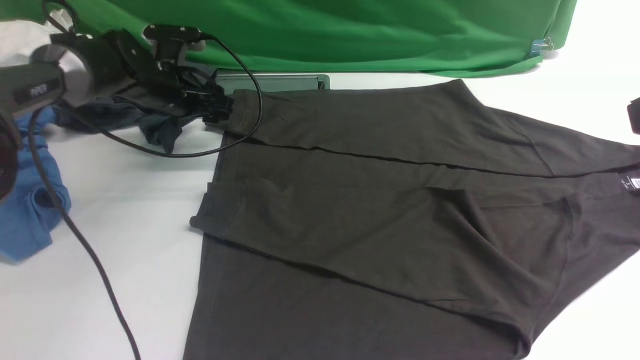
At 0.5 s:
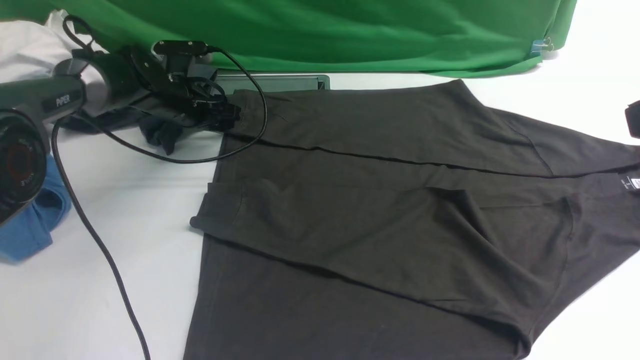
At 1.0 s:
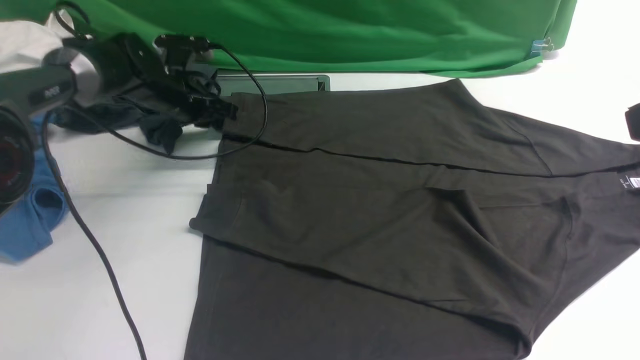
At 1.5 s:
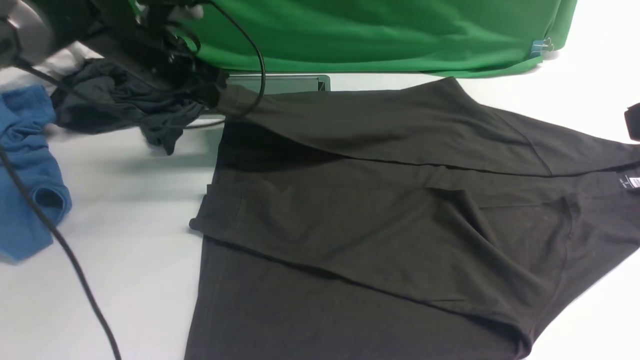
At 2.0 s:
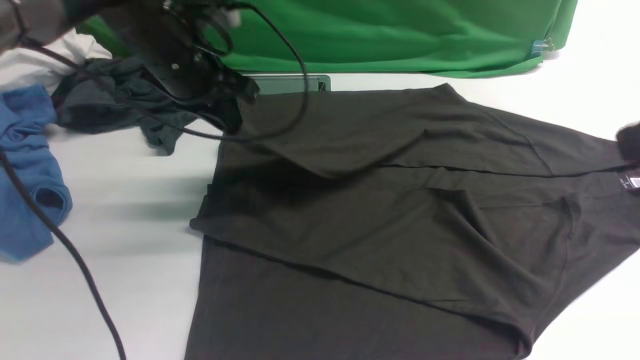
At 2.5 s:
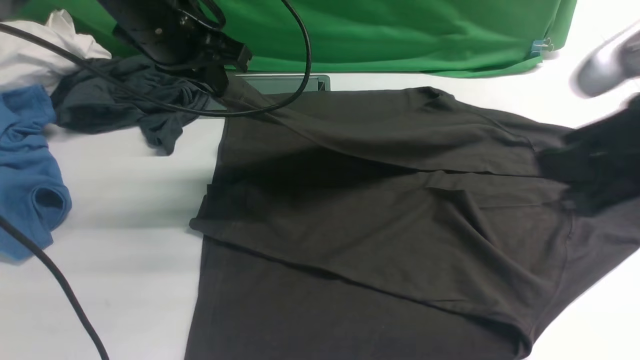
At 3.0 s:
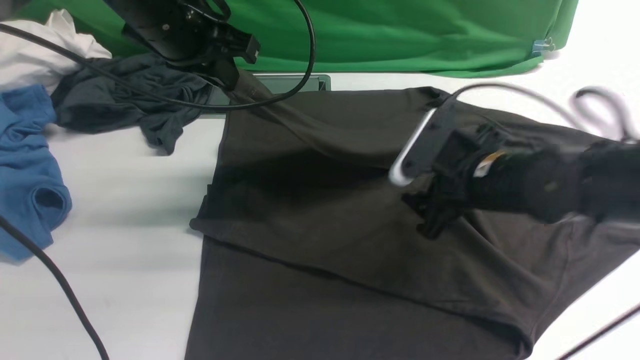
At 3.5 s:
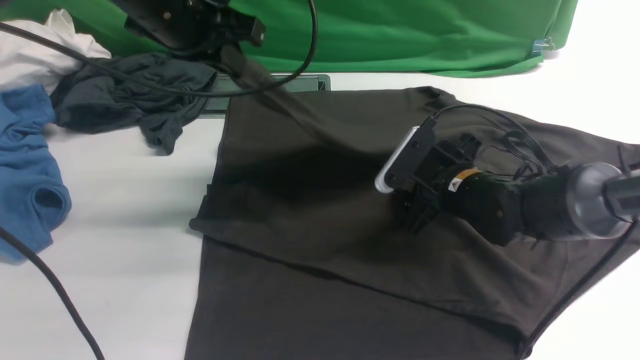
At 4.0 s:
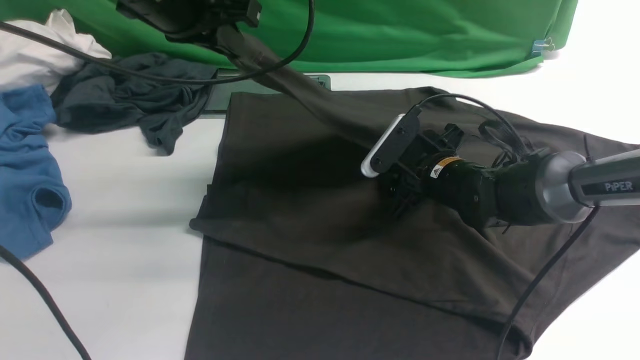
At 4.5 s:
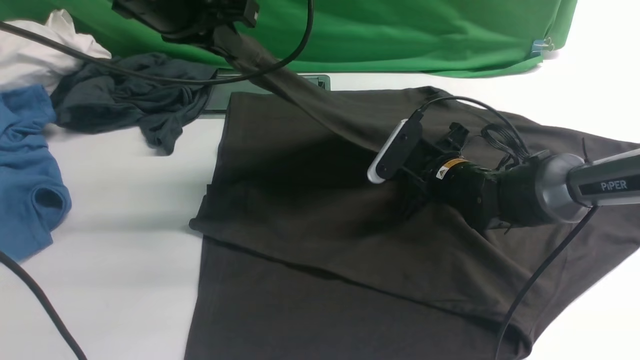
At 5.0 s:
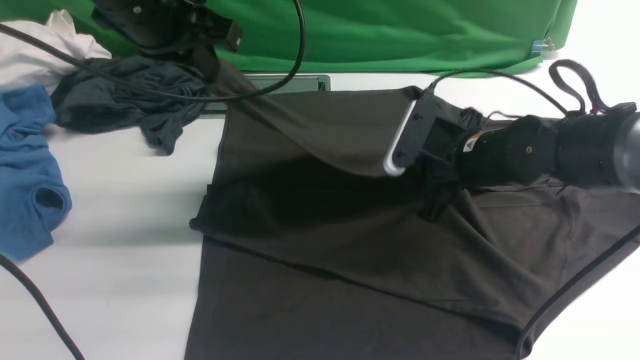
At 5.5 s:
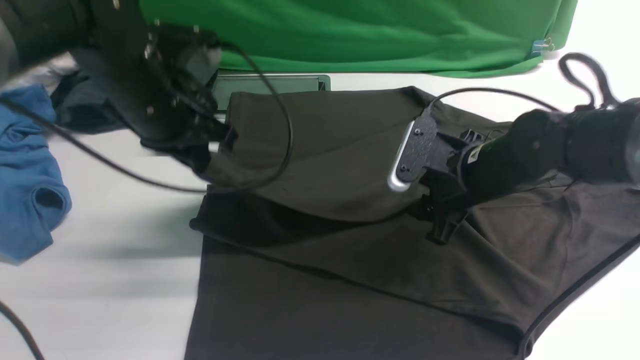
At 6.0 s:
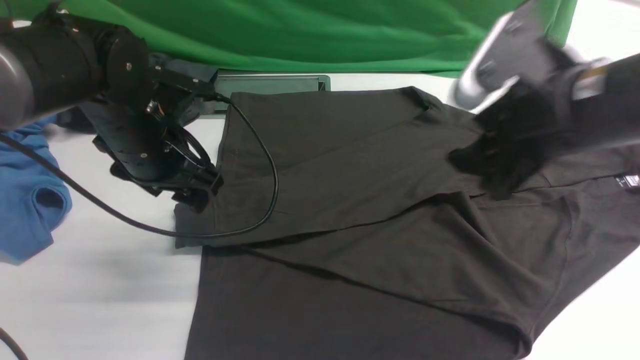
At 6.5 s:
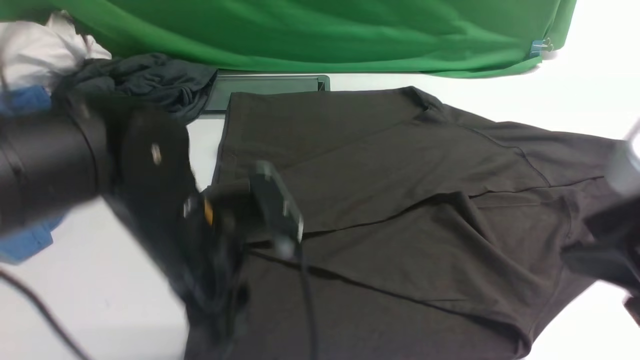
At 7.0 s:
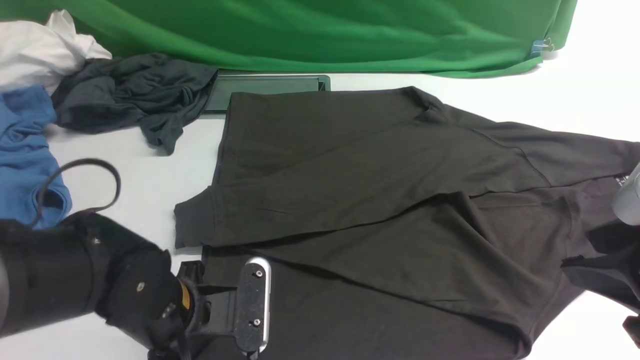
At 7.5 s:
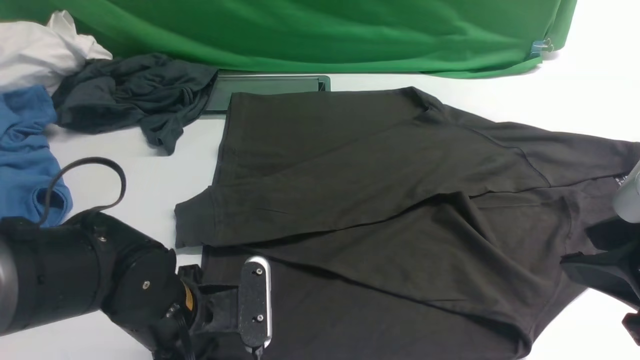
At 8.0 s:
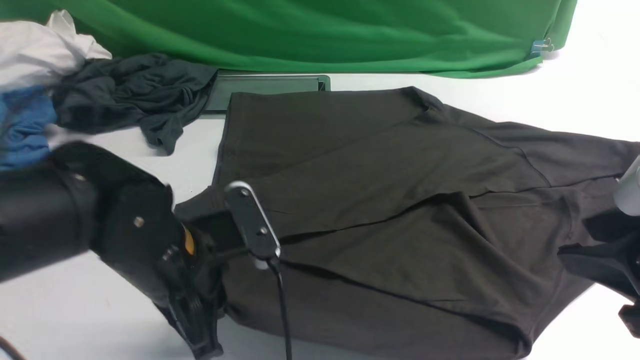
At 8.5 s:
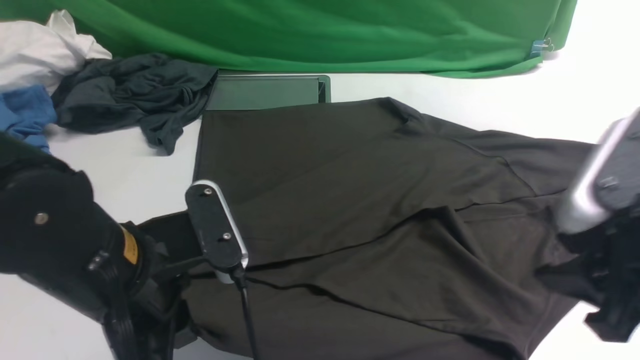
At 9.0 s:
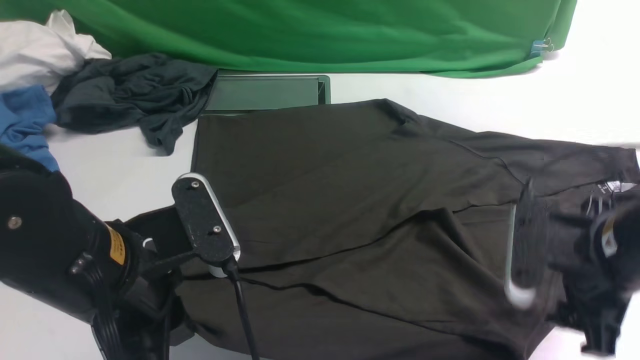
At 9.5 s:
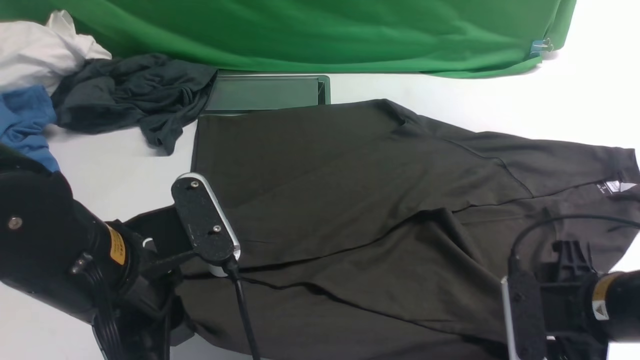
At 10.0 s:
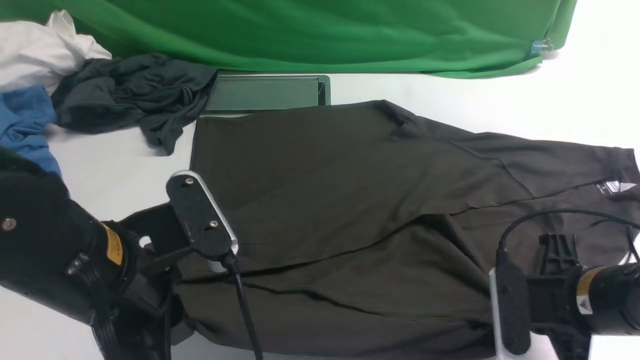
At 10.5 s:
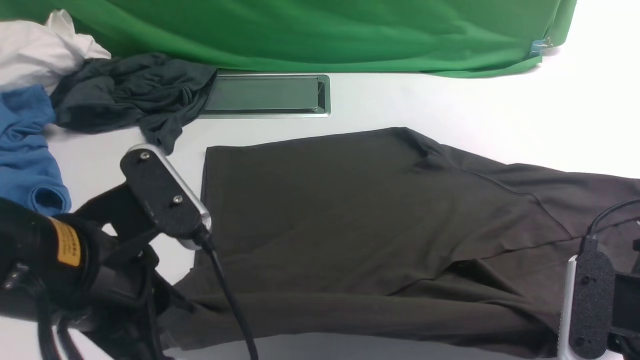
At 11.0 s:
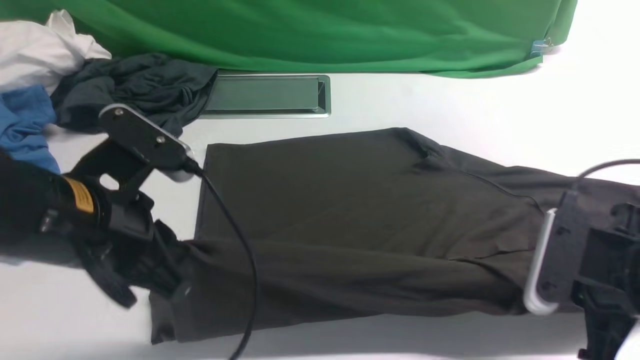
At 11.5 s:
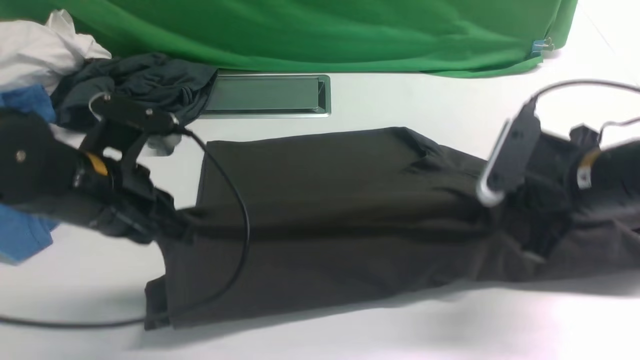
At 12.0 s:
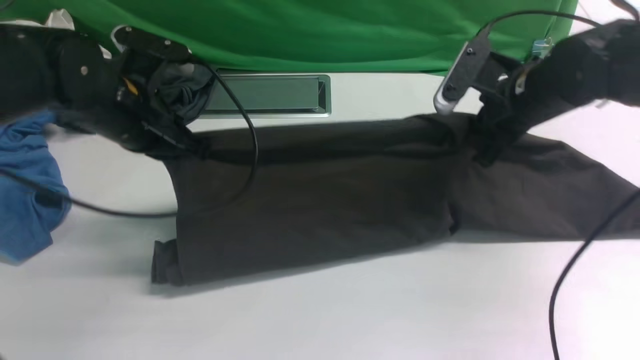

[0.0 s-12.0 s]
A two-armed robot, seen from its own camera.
Step, 1.5 to 6.0 s: use the left arm to drag and drop the cuff onto the cuff closest to the left arm.
Step, 6.5 to 10.0 s: use both arms simultaneously to clamp the lower edge of the clothing fabric.
0.0 to 2.0 s: The left gripper moves upward, backward and to the right, approximately 15 cm, and closes up.
2.0 to 4.0 s: The left gripper goes approximately 10 cm upward. Meanwhile the right gripper heads downward, forward and to the left, covering approximately 35 cm, and opens its fingers.
4.0 to 6.0 s: The left gripper goes roughly 10 cm downward, and opens up; the right gripper travels upward and backward by approximately 25 cm, and closes, then opens again.
6.0 to 8.0 s: The left gripper travels backward by approximately 10 cm, and closes its fingers. The right gripper heads backward and to the right, covering about 15 cm.
8.0 to 10.0 s: The left gripper moves upward, about 5 cm. The right gripper heads downward, covering roughly 15 cm, and closes up.
10.0 to 12.0 s: Both grippers move forward, some 20 cm.

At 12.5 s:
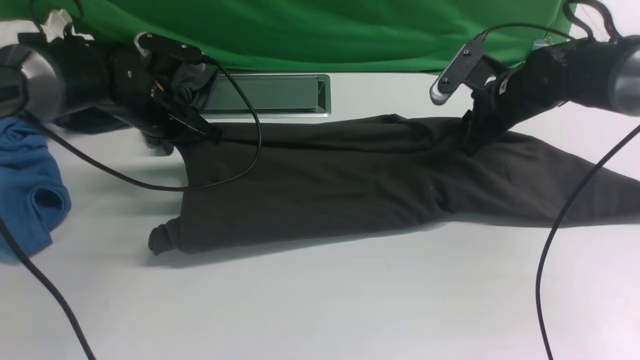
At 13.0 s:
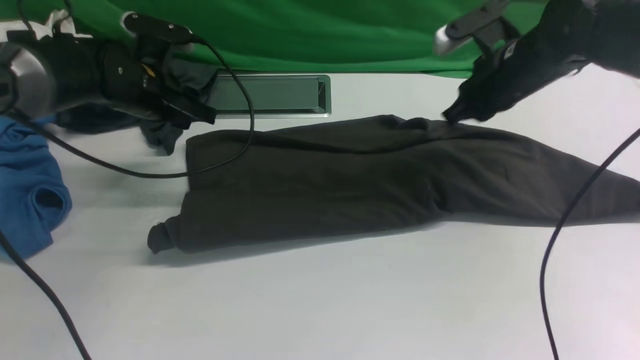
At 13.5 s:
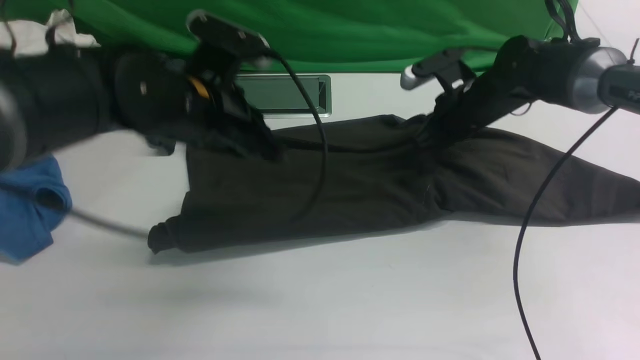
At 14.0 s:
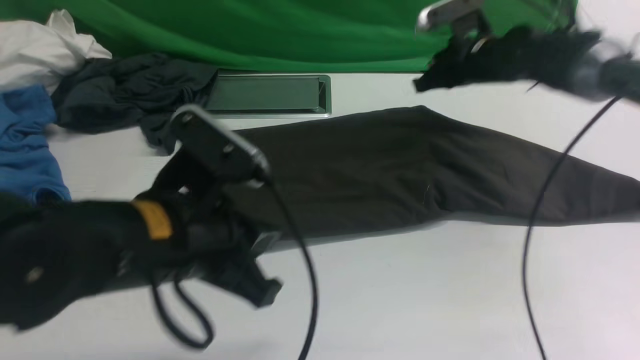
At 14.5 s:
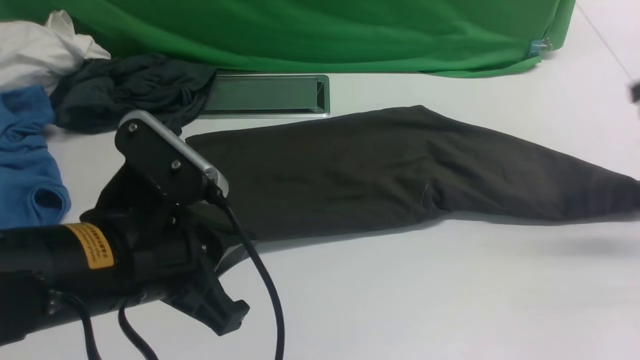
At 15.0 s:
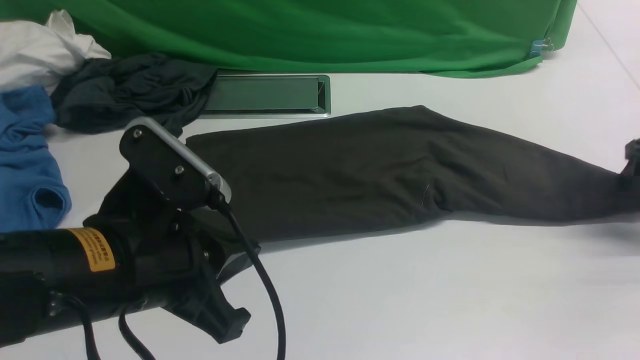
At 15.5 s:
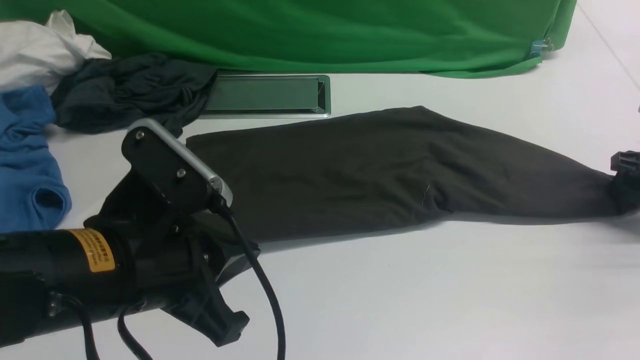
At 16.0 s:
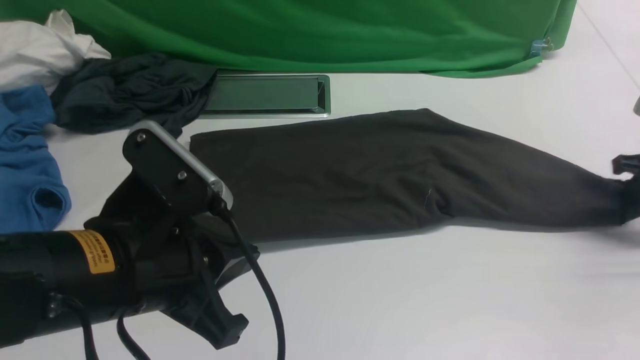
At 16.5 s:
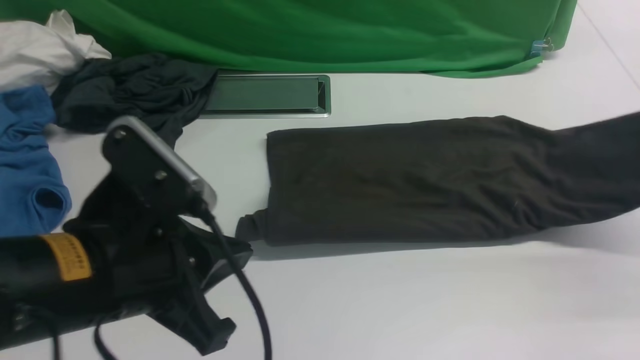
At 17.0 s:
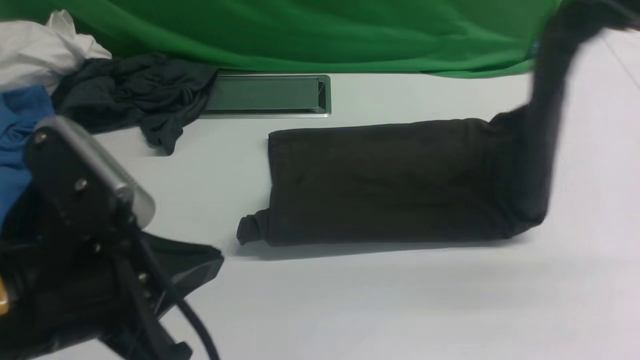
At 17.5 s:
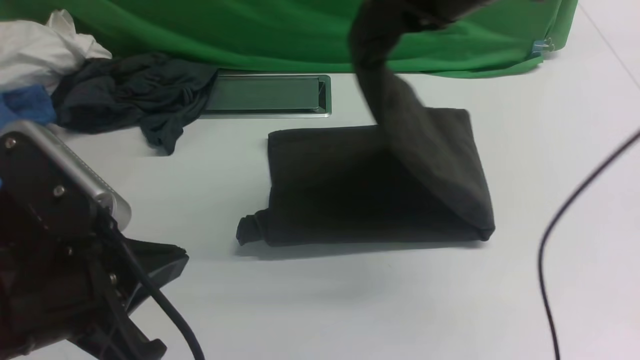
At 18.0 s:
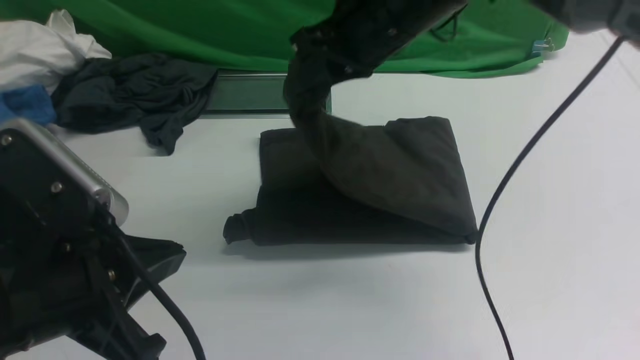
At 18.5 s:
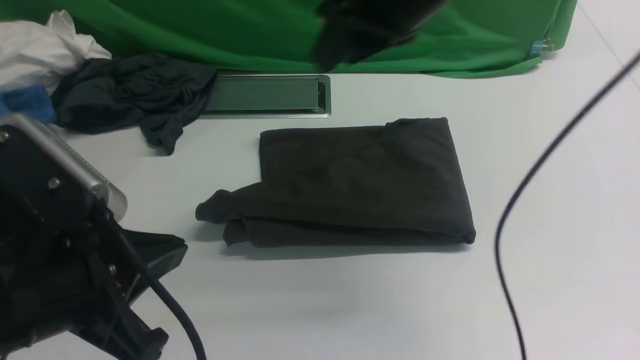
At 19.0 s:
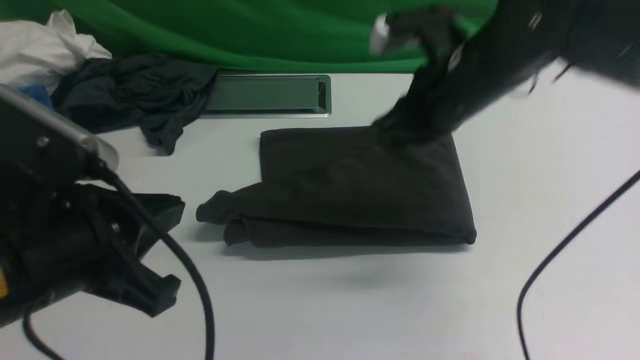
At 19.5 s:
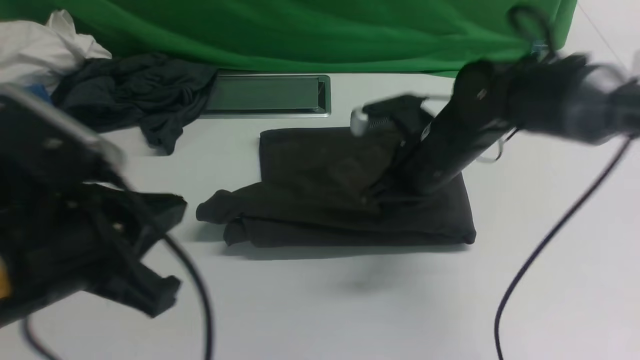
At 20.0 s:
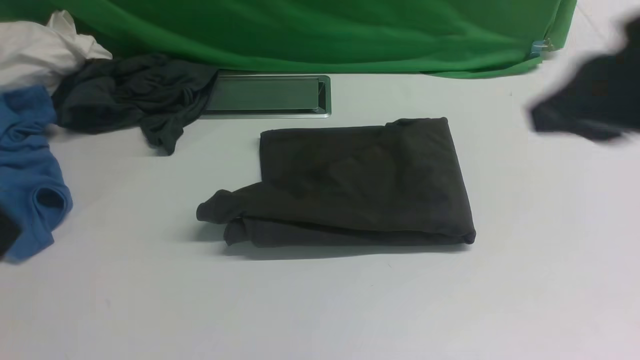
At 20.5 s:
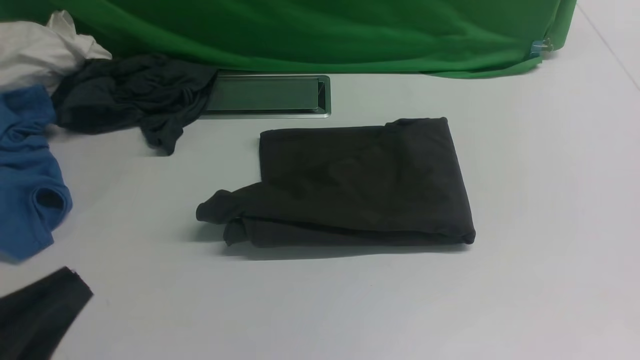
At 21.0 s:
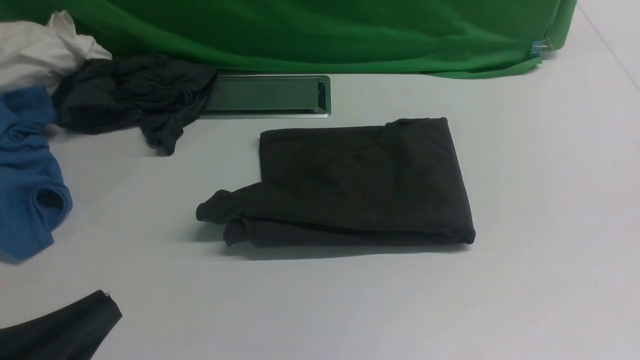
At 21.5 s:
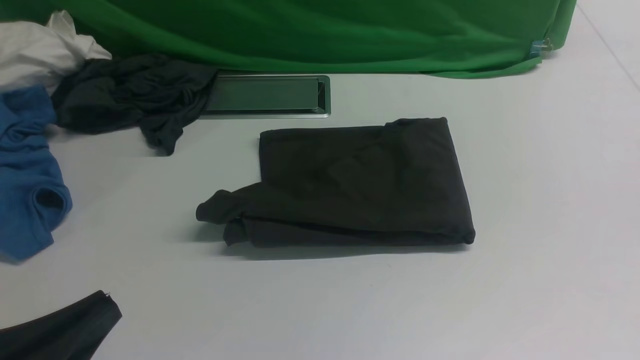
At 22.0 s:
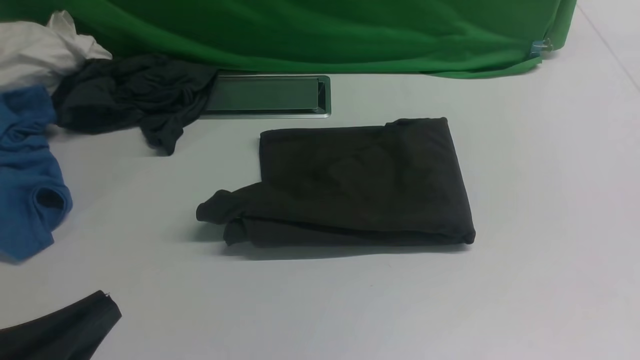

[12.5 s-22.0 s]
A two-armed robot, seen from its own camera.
Step, 13.0 to 16.0 s: use the right arm to clamp the right edge of the fabric.
Step, 16.5 to 18.0 s: use the right arm to drag the right edge of the fabric to the left and folds it over the left edge.
12.5 to 14.5 s: The left gripper travels backward by approximately 25 cm; the right gripper is displaced to the right, backward and upward by some 20 cm, and closes and opens again.
14.5 to 16.5 s: The right gripper moves backward, about 5 cm, moves some 10 cm downward and comes back, and opens, then closes again.
16.5 to 18.0 s: The right gripper goes about 35 cm to the left.
18.0 to 20.0 s: The right gripper shifts roughly 25 cm backward and to the right, and closes its fingers, while the left gripper shifts roughly 10 cm backward and to the left.
20.0 to 22.0 s: The left gripper goes about 10 cm downward, while the right gripper moves downward, backward and to the right, approximately 25 cm.
